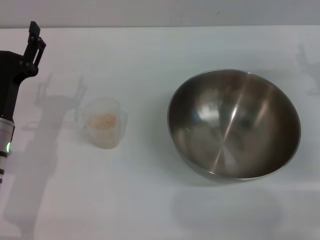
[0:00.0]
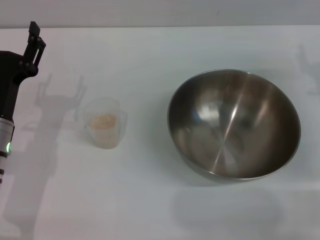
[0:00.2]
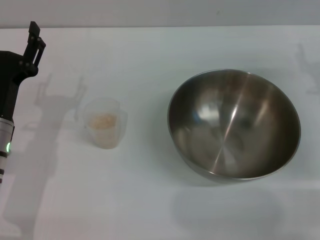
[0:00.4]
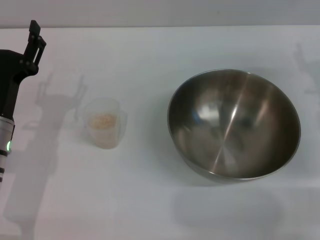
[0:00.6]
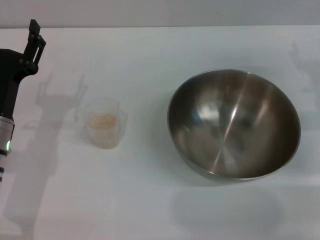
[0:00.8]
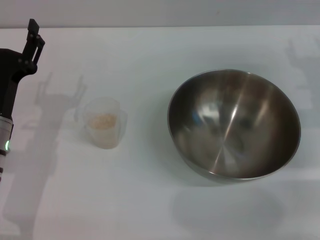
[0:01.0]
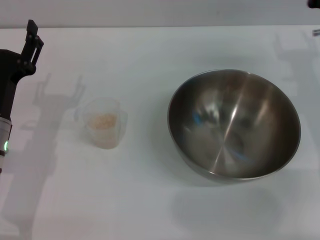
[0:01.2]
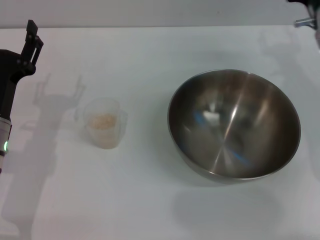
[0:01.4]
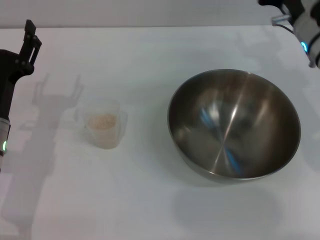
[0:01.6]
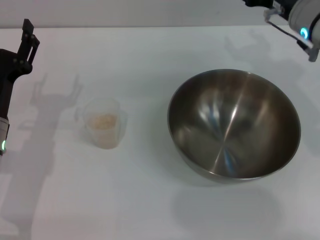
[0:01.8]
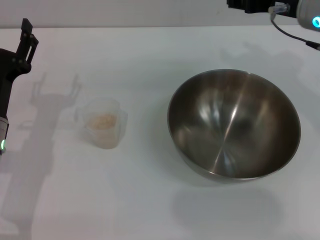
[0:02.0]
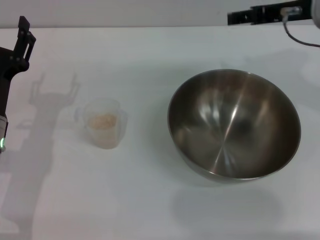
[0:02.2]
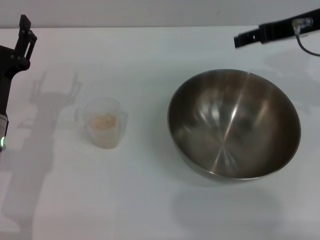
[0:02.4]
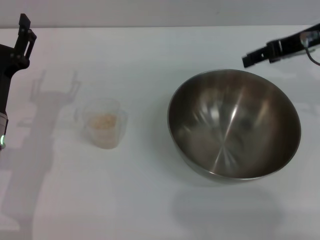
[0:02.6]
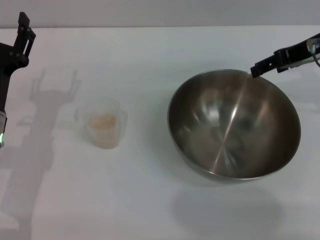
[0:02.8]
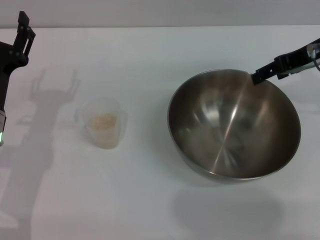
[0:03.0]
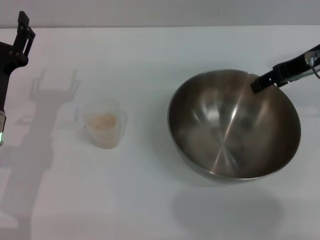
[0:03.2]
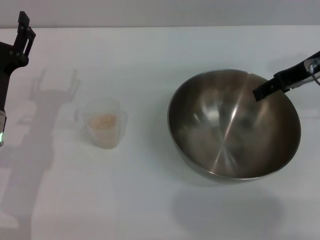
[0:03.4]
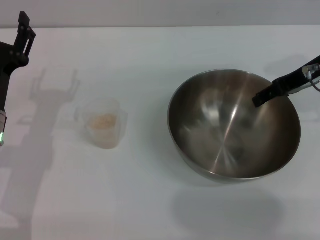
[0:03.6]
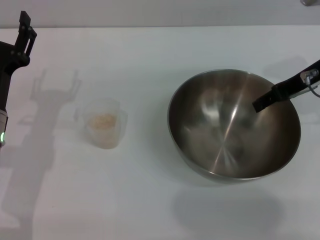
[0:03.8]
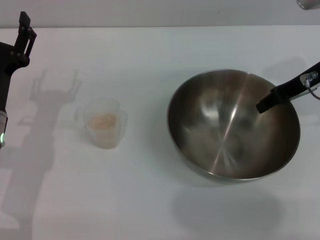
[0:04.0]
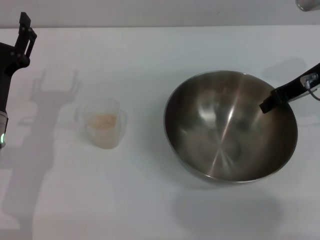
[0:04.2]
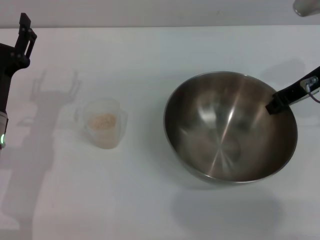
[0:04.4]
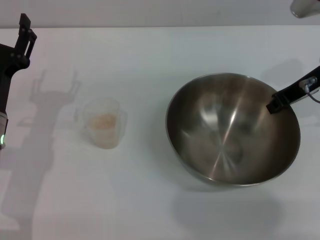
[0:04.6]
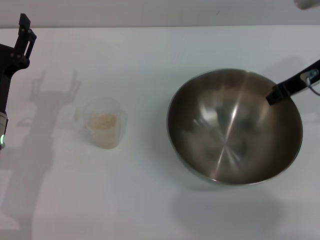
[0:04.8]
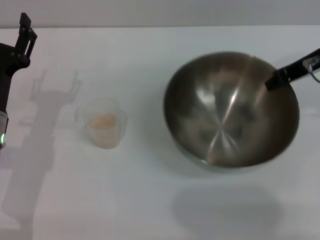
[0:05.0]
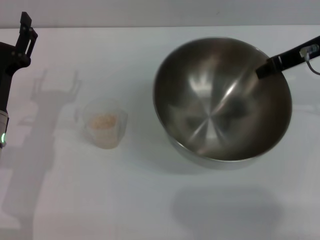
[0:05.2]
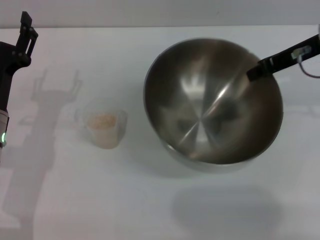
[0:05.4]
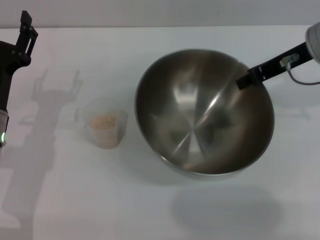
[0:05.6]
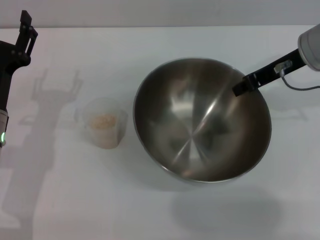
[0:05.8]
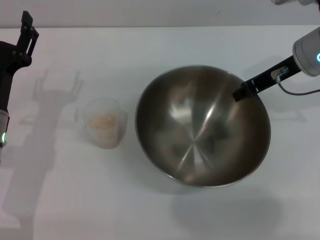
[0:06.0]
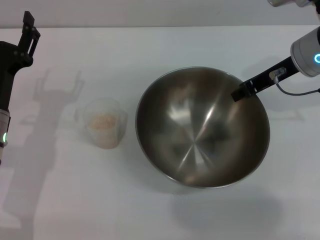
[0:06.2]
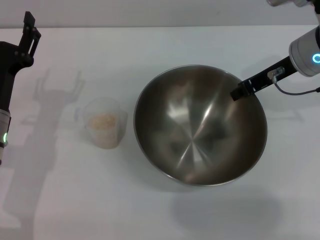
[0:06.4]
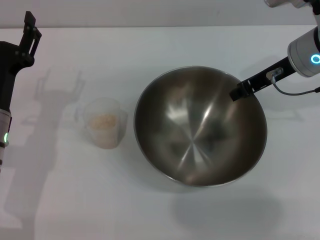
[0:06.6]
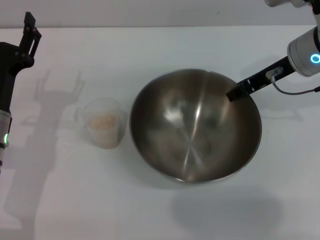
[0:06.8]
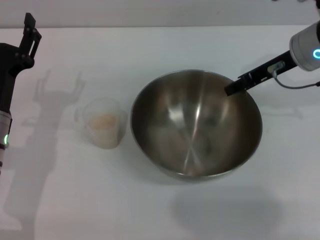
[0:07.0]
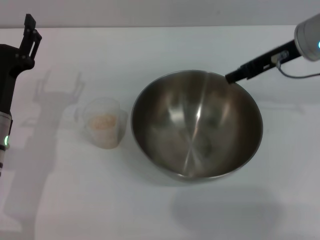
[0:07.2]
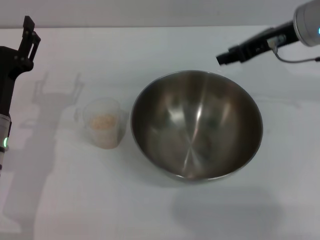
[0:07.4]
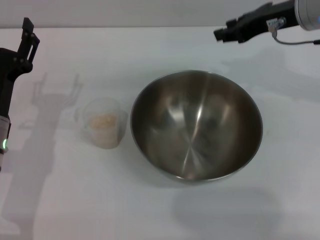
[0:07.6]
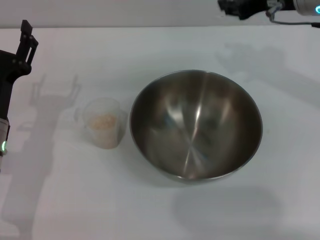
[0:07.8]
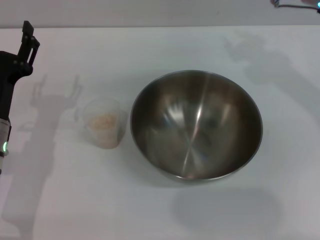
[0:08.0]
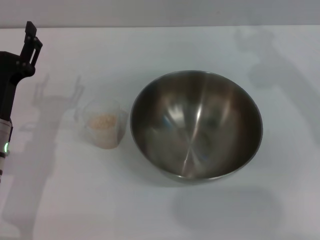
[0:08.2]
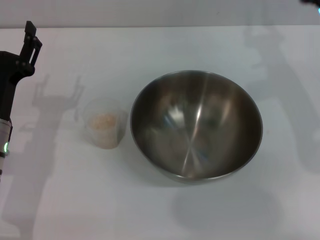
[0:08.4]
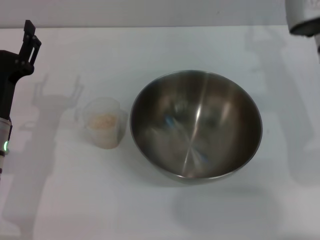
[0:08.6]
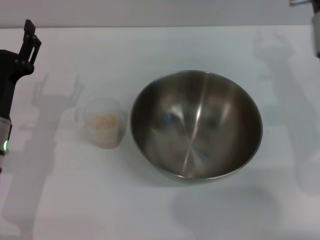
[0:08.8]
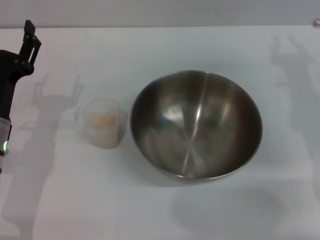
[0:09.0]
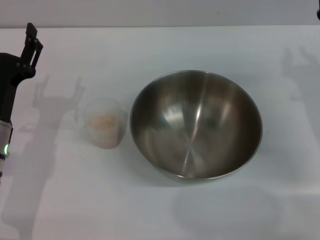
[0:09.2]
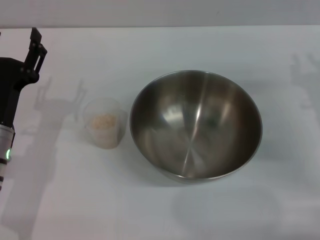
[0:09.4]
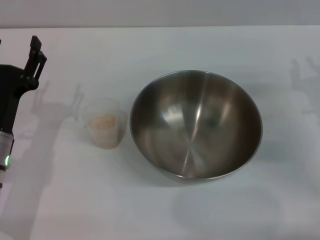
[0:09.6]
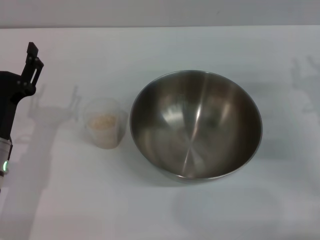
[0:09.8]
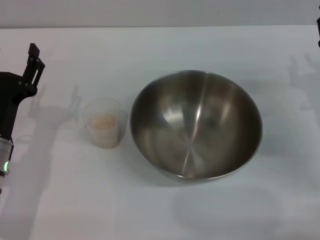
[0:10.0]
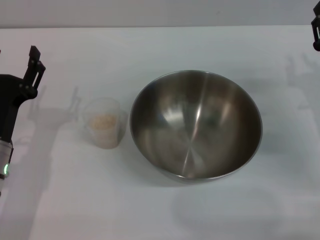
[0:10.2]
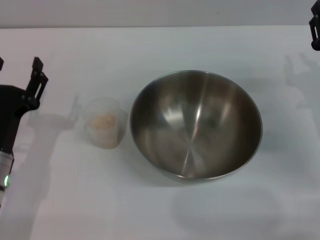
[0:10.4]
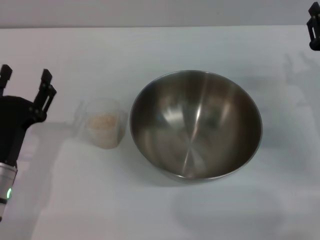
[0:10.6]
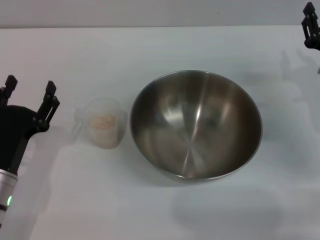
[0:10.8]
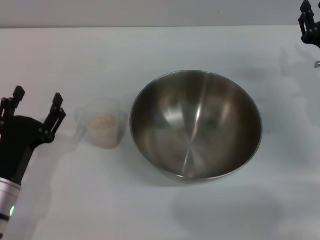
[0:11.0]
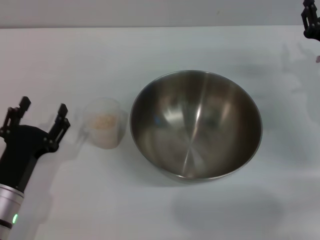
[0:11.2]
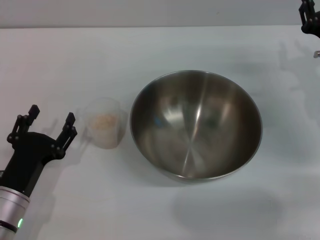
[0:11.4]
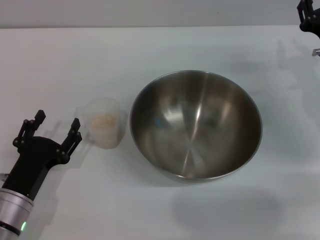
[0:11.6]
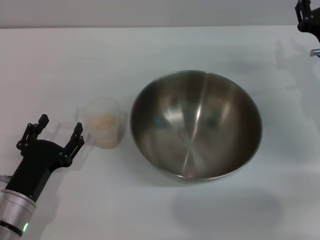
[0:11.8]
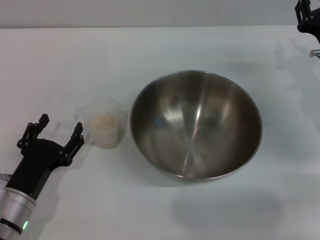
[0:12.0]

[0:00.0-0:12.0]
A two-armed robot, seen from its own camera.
Task of the whole recording: Place the bowl in the middle of the table with one hand and pour the rice from the grain cup into it with the other hand.
Step, 0:00.0 to 0:05.4: Pick up the bowl with the right gripper.
Step, 0:05.6 to 0:07.0: Place the bowl in the center of view with the right gripper.
0:00.0 to 0:01.6: The right gripper travels to the left, upward and forward by roughly 10 cm.
0:01.6 to 0:03.0: The right gripper shifts about 5 cm upward.
0:03.0 to 0:04.4: The right gripper closes its fingers.
0:06.0 to 0:07.6: The right gripper opens up.
0:07.6 to 0:09.0: The right gripper shifts about 10 cm downward and backward.
0:09.0 to 0:10.4: The right gripper moves downward, roughly 5 cm.
0:10.4 to 0:12.0: The left gripper moves about 5 cm.

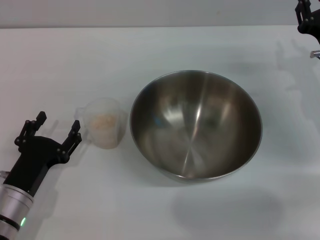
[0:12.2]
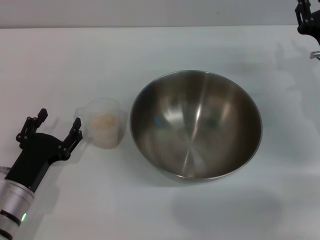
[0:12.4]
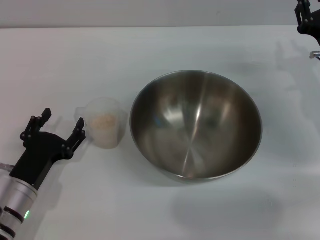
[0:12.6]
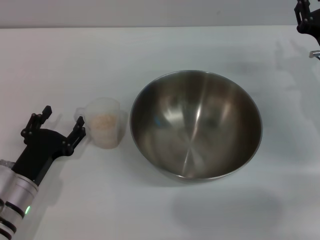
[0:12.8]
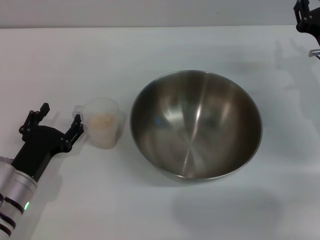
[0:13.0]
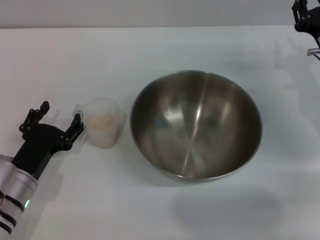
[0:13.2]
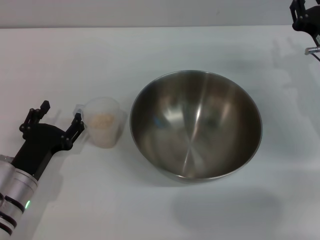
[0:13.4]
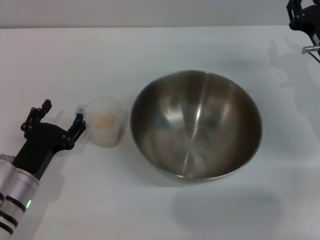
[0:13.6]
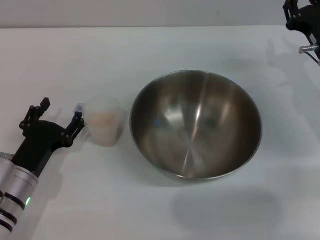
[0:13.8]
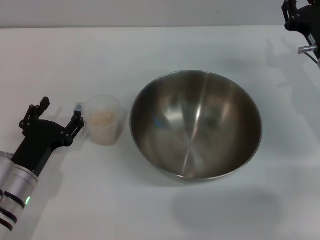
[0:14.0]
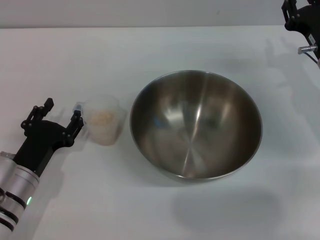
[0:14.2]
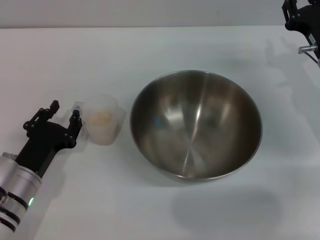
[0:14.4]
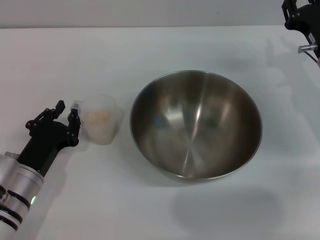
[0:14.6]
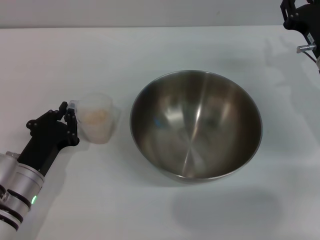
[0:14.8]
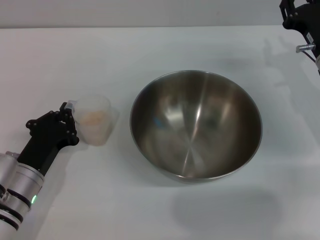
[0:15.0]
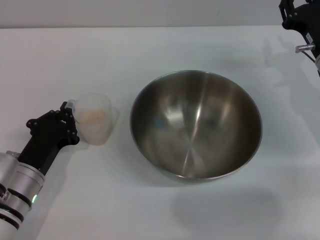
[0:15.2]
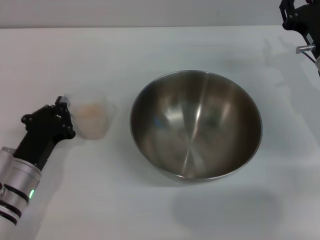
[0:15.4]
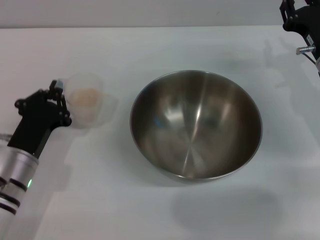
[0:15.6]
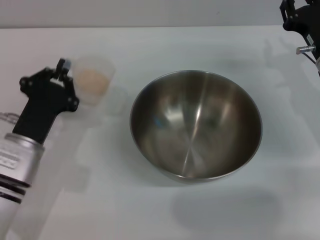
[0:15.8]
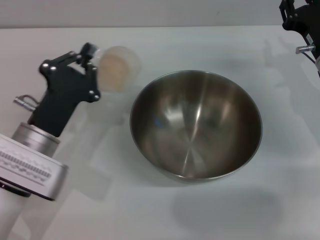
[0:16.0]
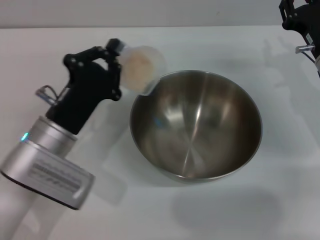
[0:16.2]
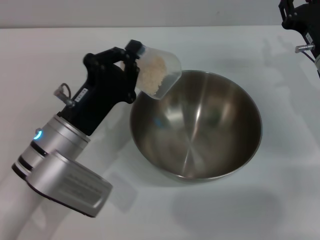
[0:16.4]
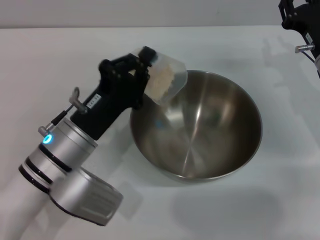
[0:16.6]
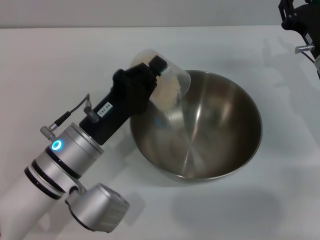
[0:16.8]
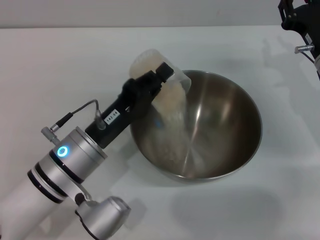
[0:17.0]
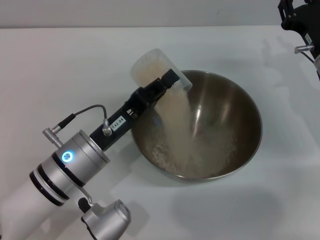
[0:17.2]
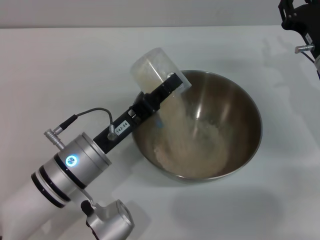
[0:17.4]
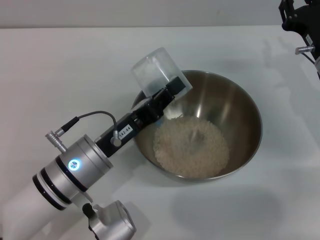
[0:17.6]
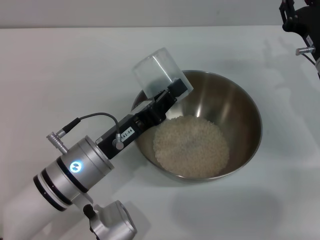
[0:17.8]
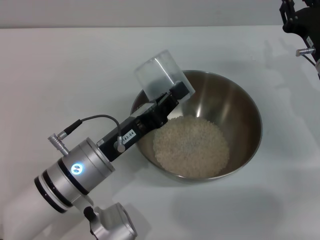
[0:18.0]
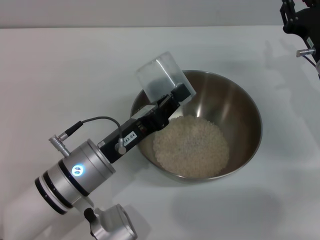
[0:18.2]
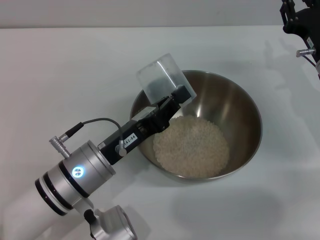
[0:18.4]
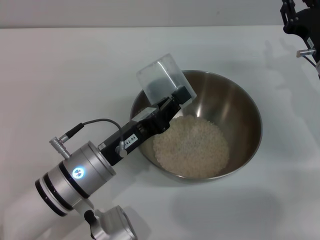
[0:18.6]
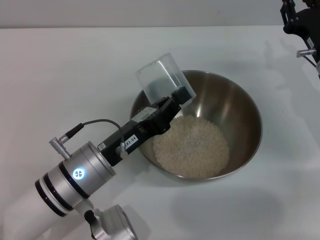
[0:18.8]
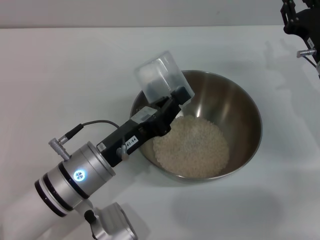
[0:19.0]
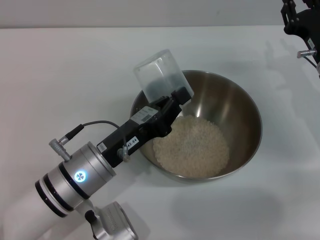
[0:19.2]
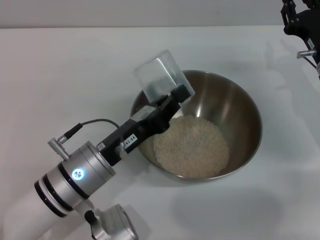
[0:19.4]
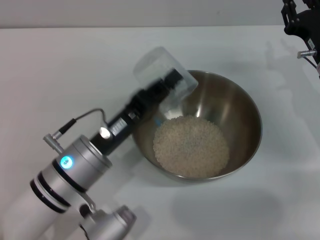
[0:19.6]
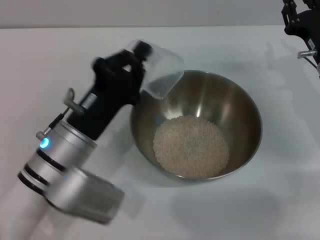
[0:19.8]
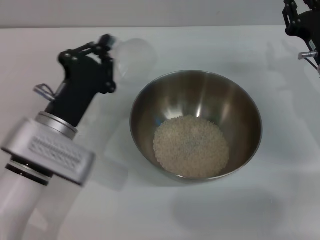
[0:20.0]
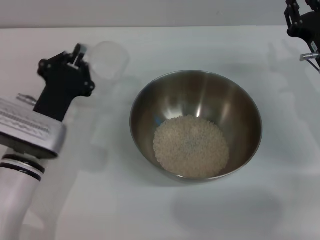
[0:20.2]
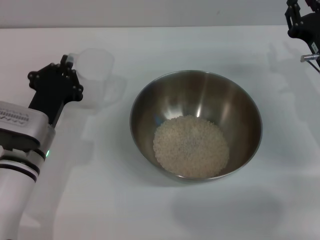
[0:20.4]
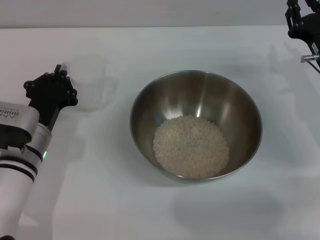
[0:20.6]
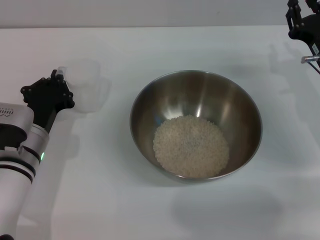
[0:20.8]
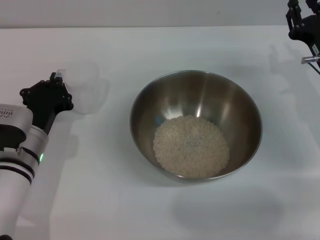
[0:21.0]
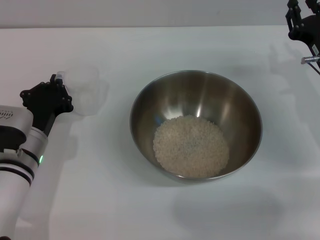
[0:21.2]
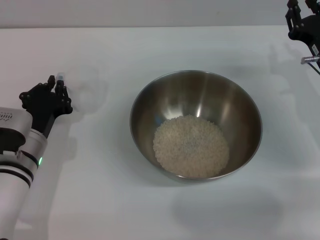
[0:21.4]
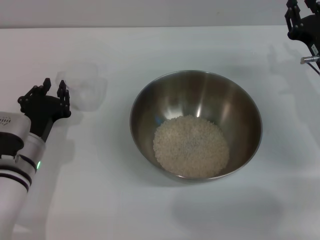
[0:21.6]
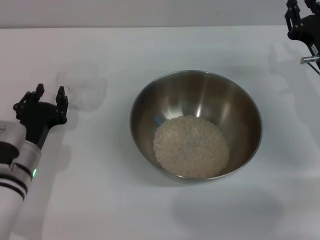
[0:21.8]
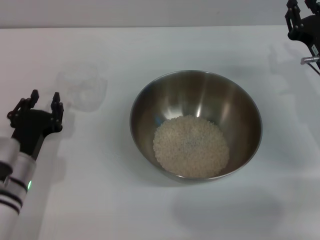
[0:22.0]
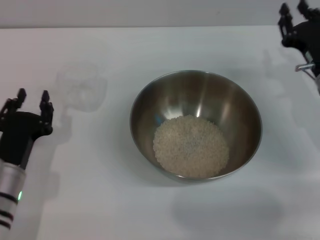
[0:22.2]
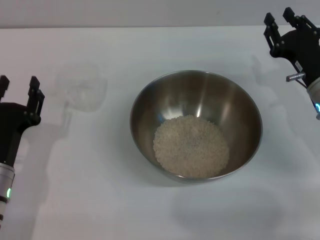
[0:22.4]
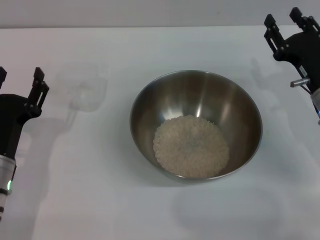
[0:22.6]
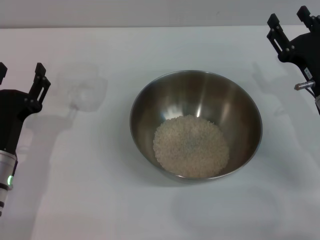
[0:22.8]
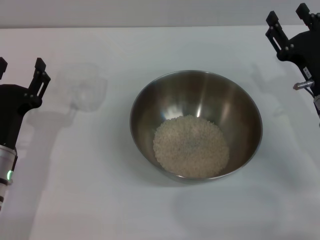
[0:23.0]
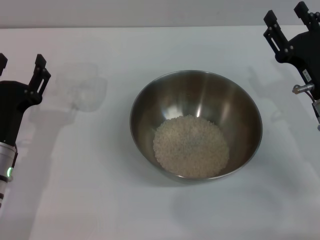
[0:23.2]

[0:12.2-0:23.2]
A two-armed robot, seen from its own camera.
Task of the whole recording: Place the bowl in the middle of the table with one hand and pour the rice from the grain cup into it with the other hand.
Step, 0:12.2 to 0:15.8: Pick up the cup with rice in it with the left gripper.
Step, 0:16.0 to 0:17.6: Pour the rice from the cup into the bowl with the left gripper.
Step, 0:17.8 to 0:22.0: Place the cup on the table with the left gripper.
0:12.2 to 0:13.8: The grippers move only a little.
0:13.8 to 0:15.4: The left gripper closes up.
0:15.4 to 0:17.0: The left gripper travels to the right and upward by some 10 cm.
0:20.0 to 0:21.6: The left gripper goes approximately 5 cm downward.
0:21.6 to 0:23.2: The left gripper opens. Meanwhile the right gripper is displaced backward by some 5 cm.
